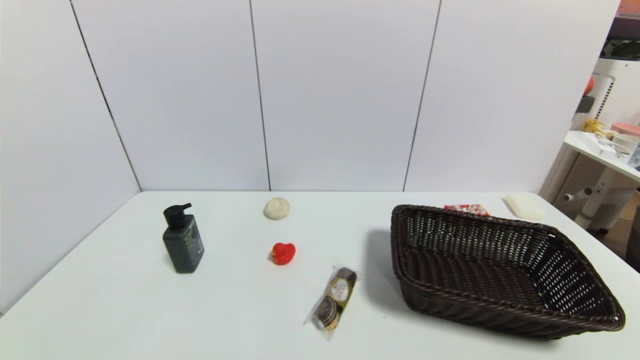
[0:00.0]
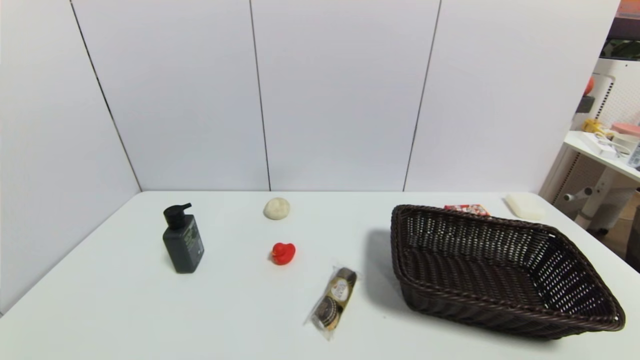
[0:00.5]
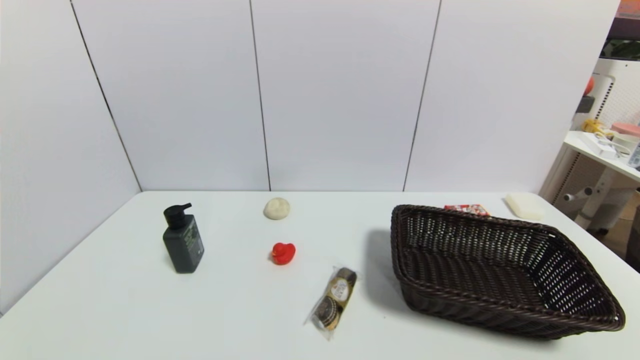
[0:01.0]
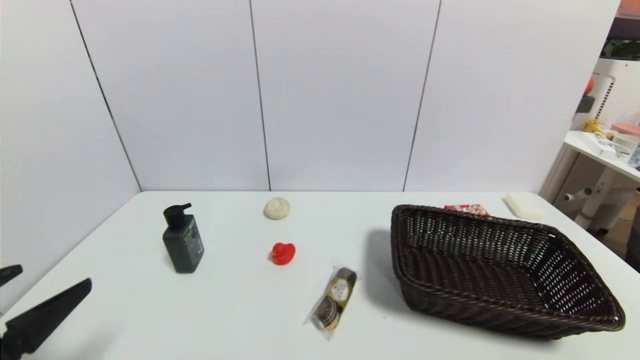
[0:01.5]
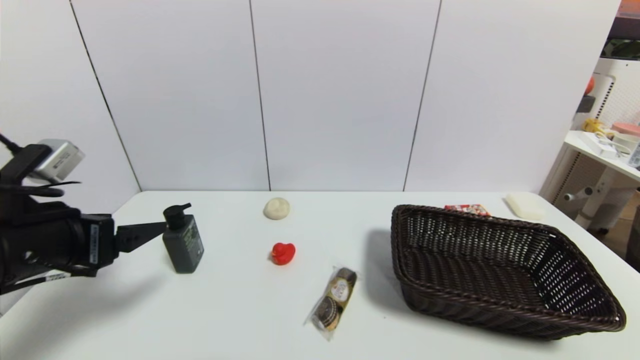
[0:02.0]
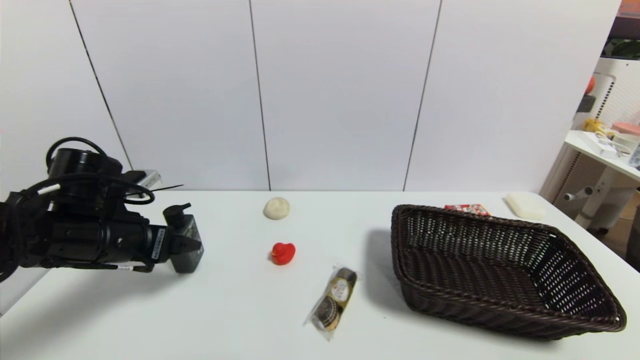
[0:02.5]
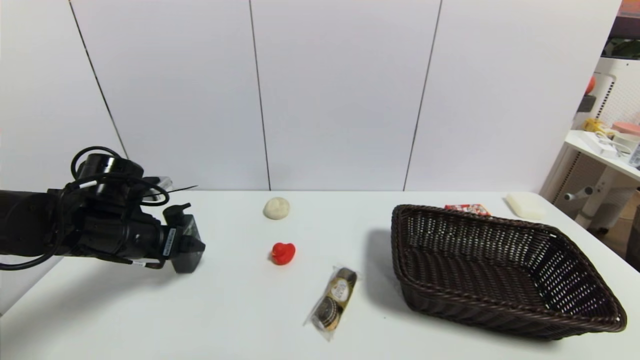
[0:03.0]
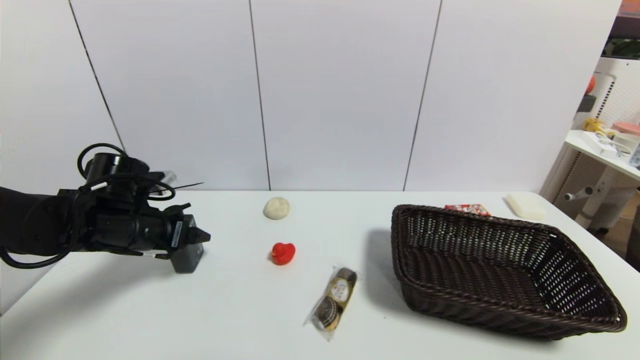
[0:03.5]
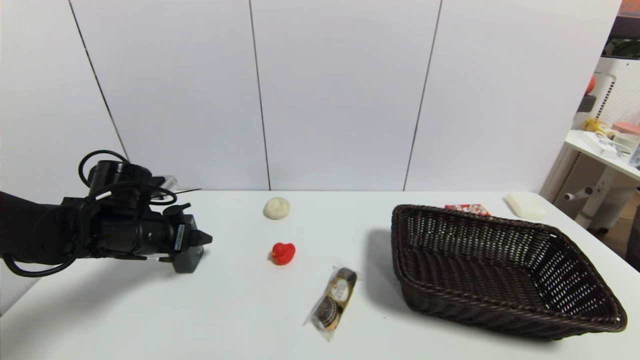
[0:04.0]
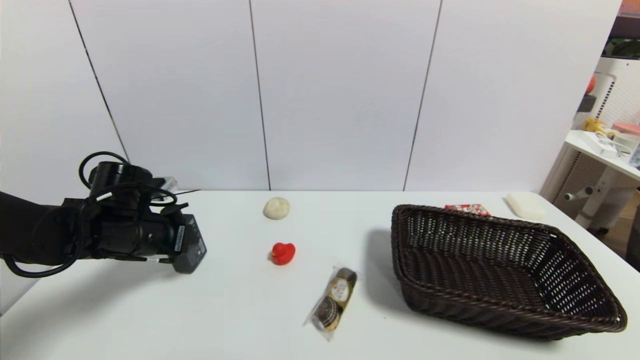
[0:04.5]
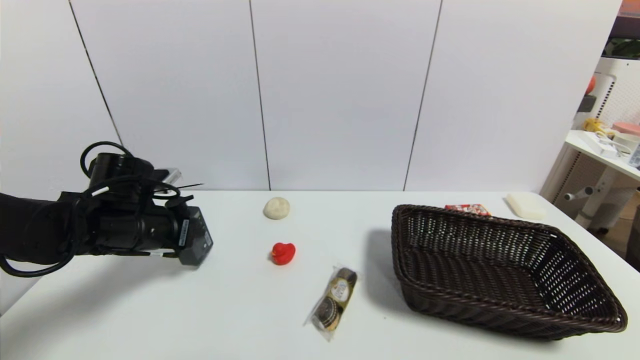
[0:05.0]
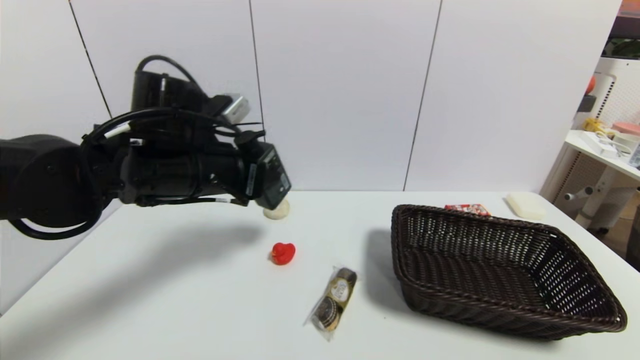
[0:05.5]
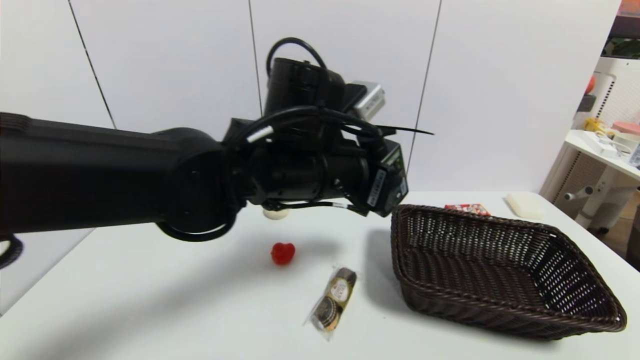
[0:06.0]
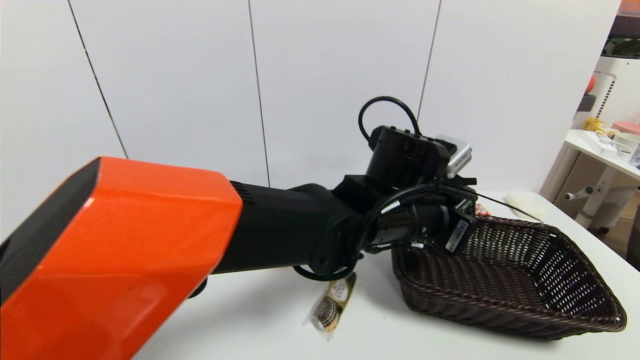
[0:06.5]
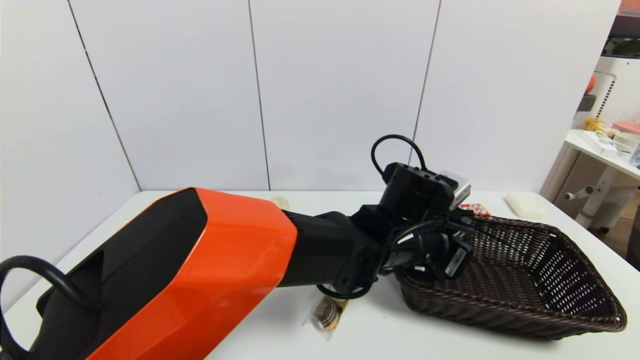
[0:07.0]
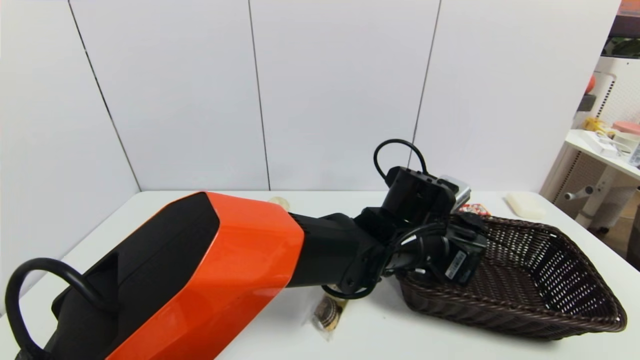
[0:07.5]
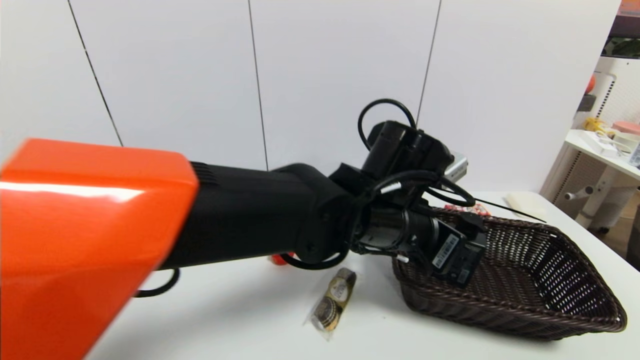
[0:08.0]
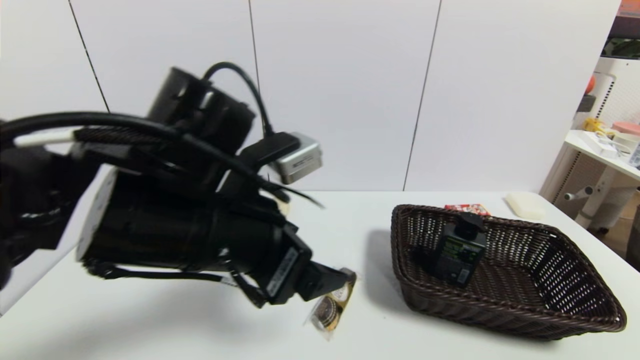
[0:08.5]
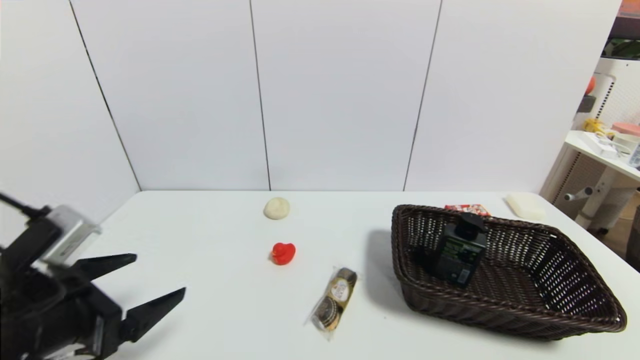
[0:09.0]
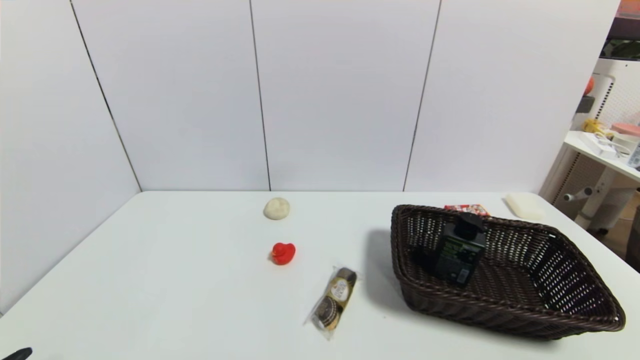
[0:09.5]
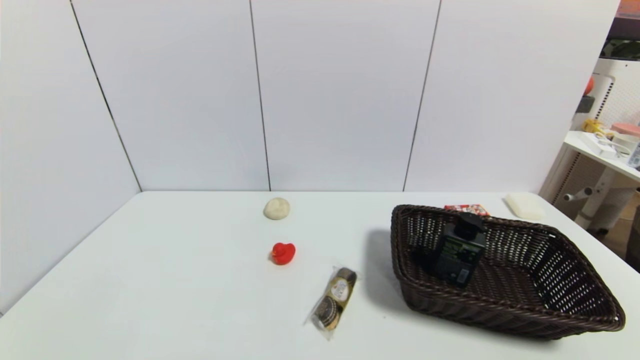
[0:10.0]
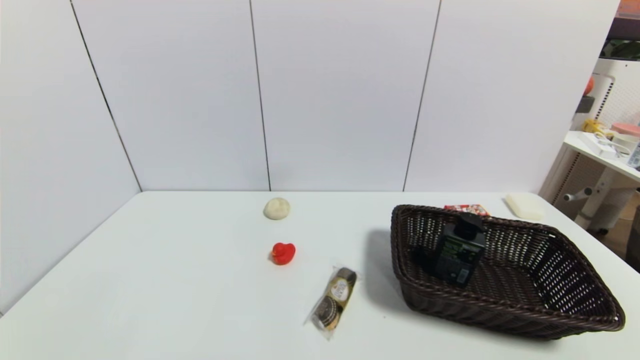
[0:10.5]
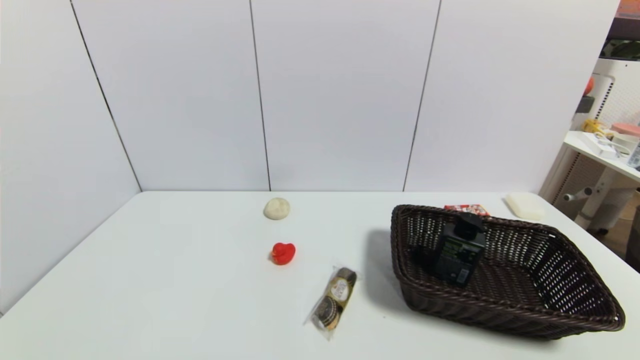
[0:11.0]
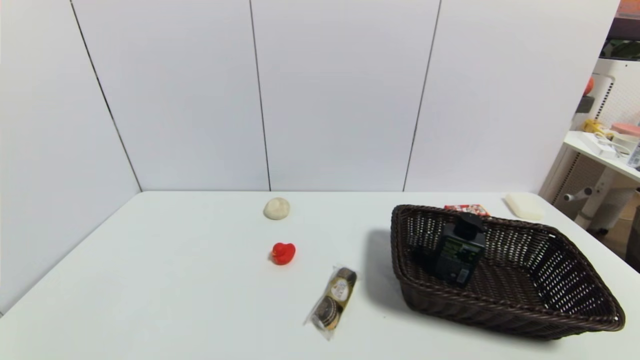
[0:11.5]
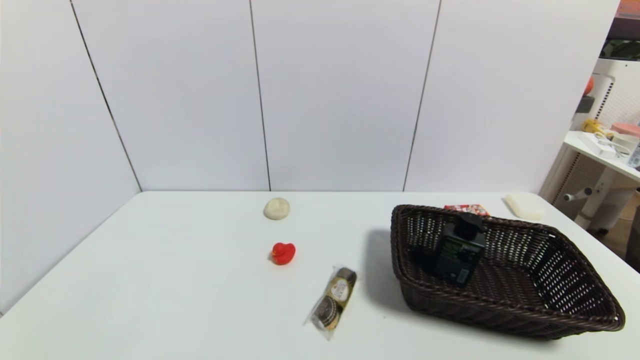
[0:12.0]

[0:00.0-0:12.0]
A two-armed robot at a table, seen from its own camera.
Task of the whole recording: use a gripper to pick the target object and place on the brown basket.
Step, 0:00.0 to 0:04.5: Grasp the hard facial cleanser with the left gripper.
Step, 0:05.0 to 0:07.5: Place the hard facial cleanser into the basket with the left gripper.
0:00.0 to 0:02.0: The left gripper goes some 25 cm forward and upward.
0:02.0 to 0:04.0: The left gripper goes some 15 cm forward and downward.
0:04.0 to 0:06.0: The left gripper moves to the right and upward, roughly 30 cm, and closes.
0:06.0 to 0:08.0: The left gripper heads to the right, covering some 5 cm, and opens its fingers.
0:08.0 to 0:10.0: The left gripper heads to the left, backward and downward, covering about 50 cm.
0:10.0 to 0:12.0: The two grippers keep their place.
